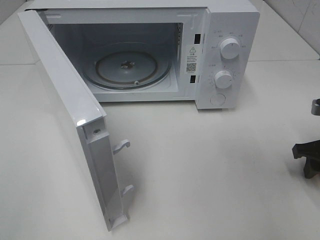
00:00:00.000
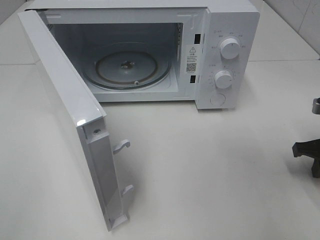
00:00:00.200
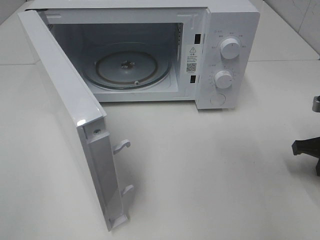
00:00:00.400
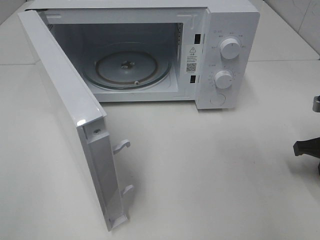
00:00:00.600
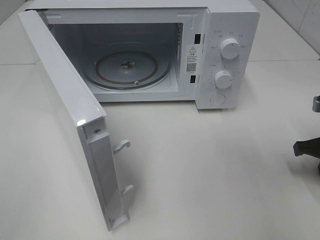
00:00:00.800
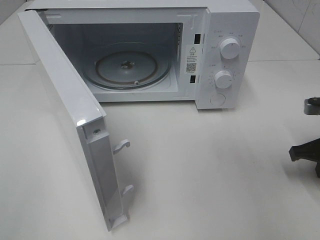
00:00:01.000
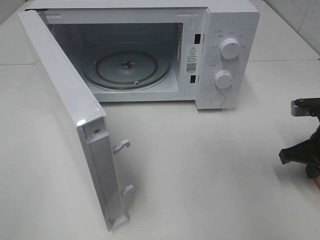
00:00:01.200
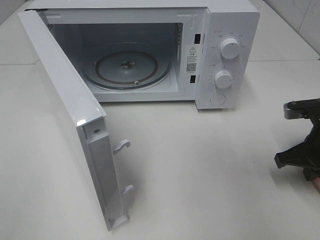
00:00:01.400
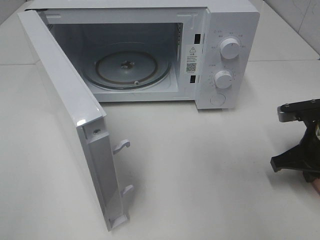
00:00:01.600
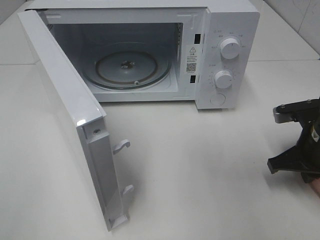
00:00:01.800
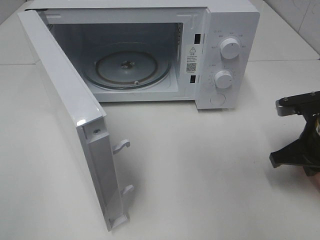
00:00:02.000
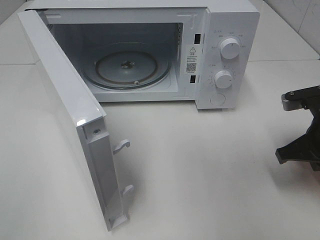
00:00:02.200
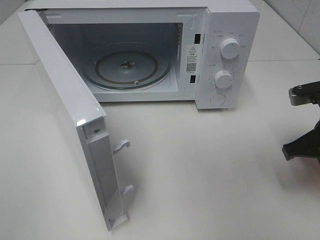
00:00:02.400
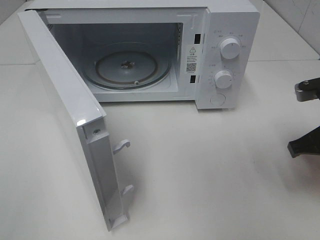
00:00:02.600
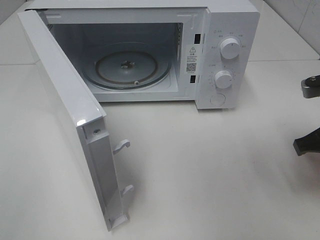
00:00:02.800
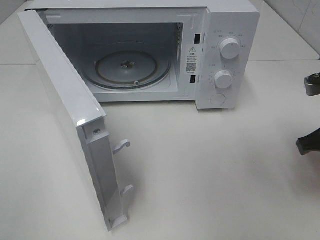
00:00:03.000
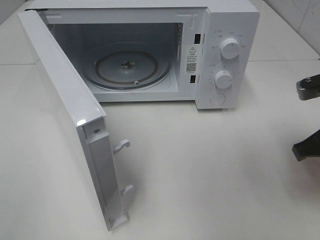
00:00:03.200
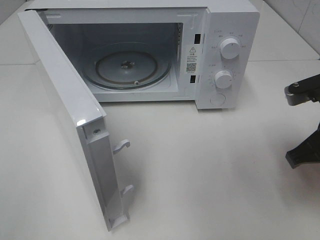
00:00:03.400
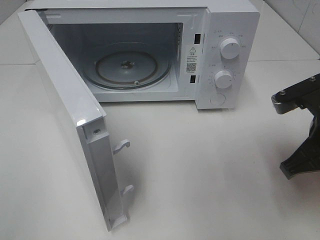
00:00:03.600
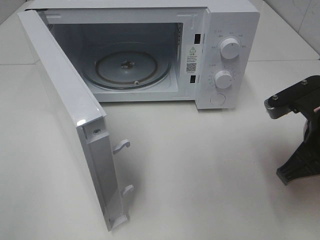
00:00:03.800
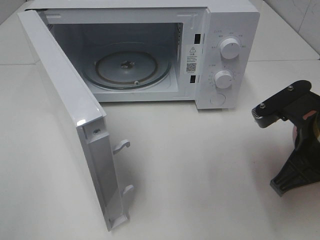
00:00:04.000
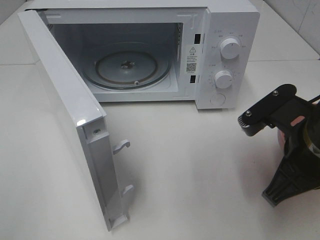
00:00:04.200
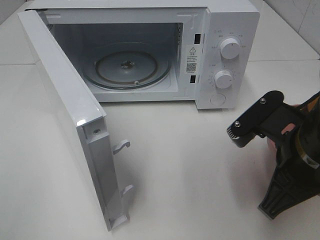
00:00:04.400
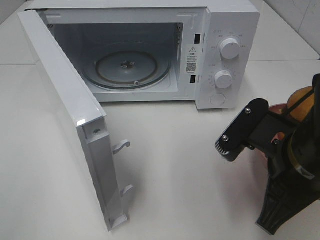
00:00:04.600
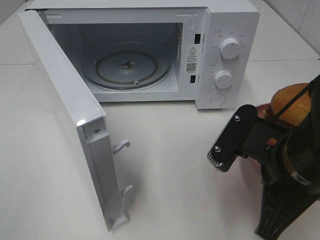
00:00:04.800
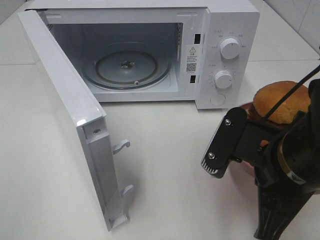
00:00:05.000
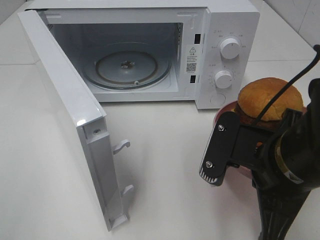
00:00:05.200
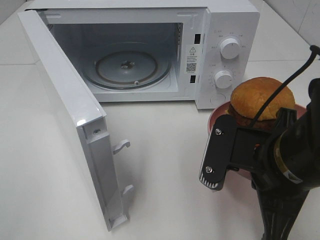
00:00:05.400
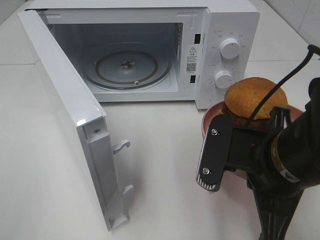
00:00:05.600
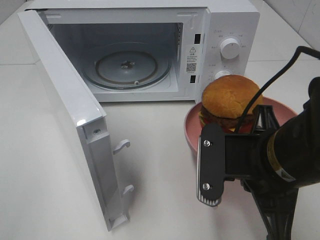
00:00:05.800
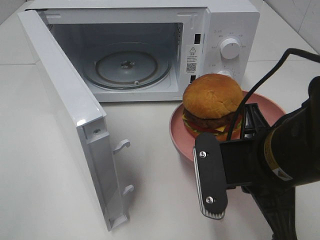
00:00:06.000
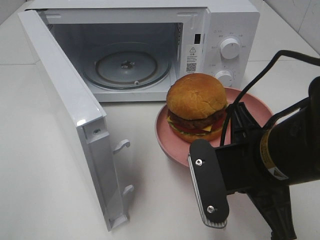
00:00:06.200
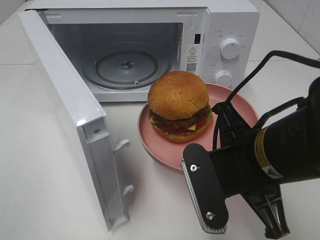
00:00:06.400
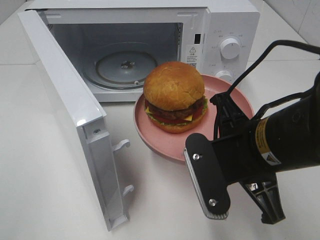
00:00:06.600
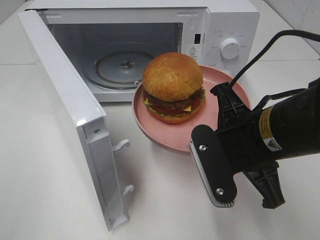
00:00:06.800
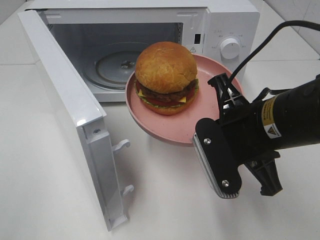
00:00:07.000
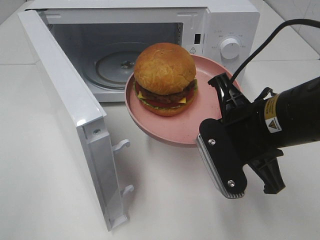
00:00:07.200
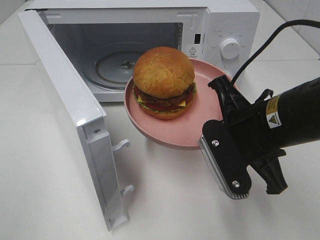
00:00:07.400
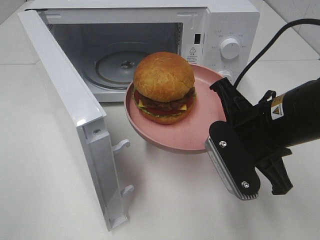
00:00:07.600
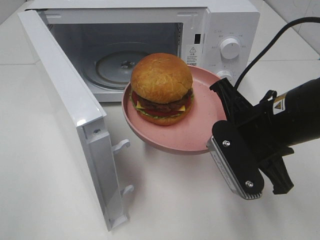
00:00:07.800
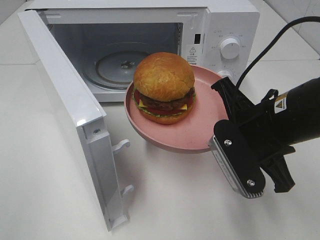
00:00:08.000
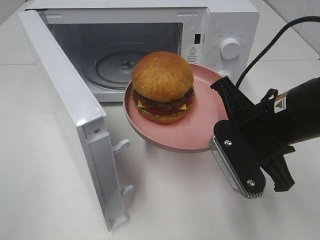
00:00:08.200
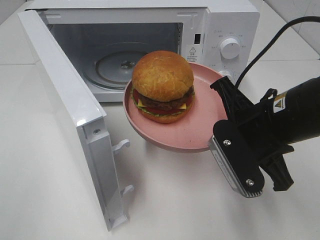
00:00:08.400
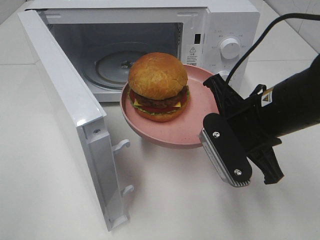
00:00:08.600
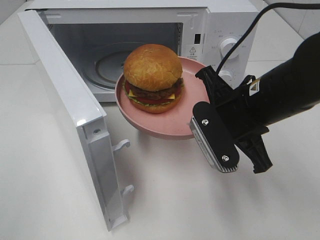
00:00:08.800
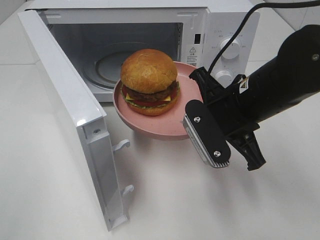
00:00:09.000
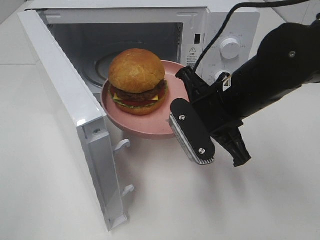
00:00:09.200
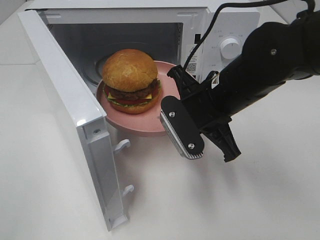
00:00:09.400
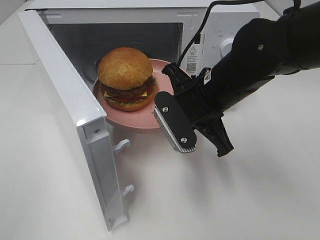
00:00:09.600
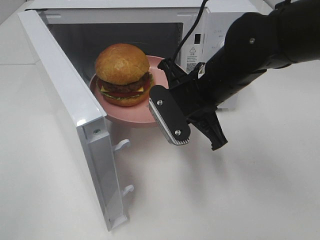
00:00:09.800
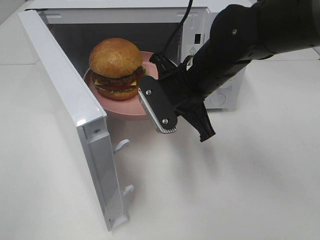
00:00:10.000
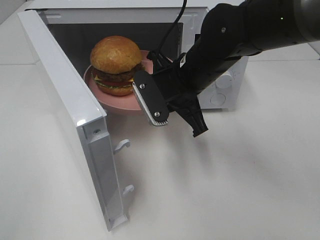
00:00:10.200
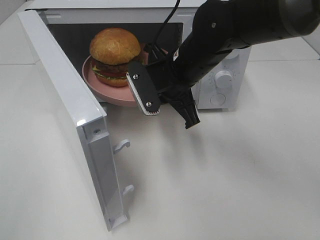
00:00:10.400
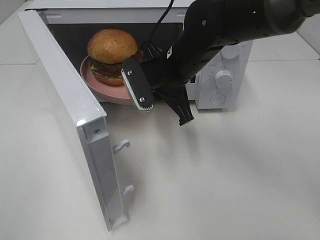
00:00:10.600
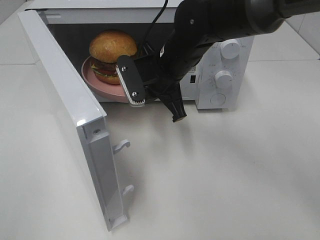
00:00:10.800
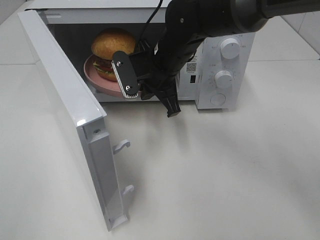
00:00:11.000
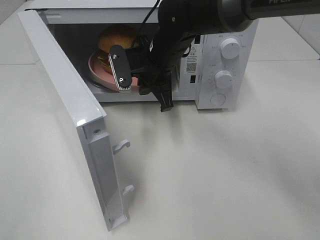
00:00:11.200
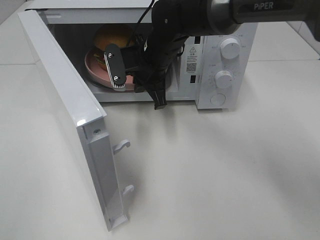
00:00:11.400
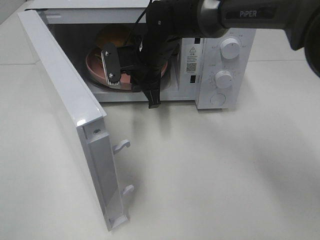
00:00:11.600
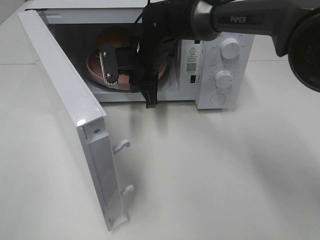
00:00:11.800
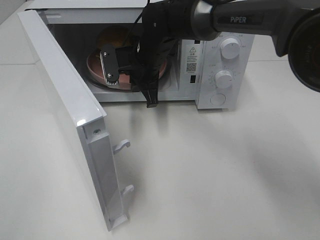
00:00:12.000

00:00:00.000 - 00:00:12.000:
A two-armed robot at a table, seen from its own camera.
Task of the whole recording: Heat the burger.
00:00:00.000 - 00:00:01.600: The right gripper heads to the left, covering roughly 5 cm, and closes its fingers.
00:00:01.600 - 00:00:03.000: The right gripper goes roughly 10 cm upward.
00:00:03.000 - 00:00:04.400: The right gripper shifts approximately 10 cm to the left and backward.
00:00:06.000 - 00:00:07.600: The right gripper goes about 5 cm forward.
00:00:09.000 - 00:00:10.400: The right gripper shifts about 10 cm forward and to the left.
00:00:10.400 - 00:00:12.000: The right gripper is displaced forward and to the left by roughly 10 cm.

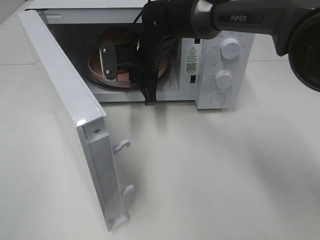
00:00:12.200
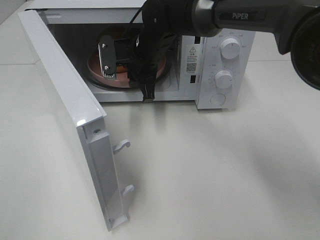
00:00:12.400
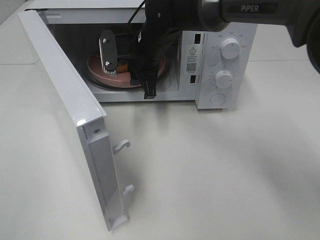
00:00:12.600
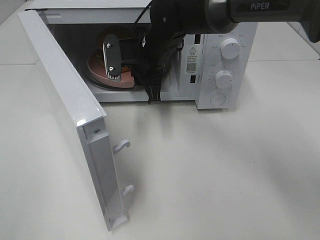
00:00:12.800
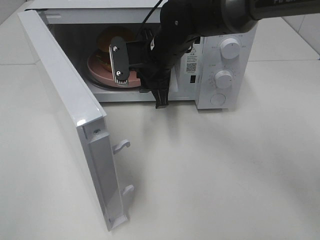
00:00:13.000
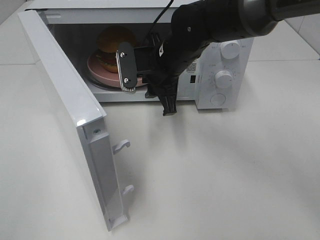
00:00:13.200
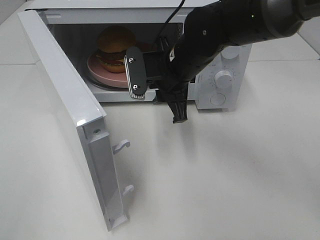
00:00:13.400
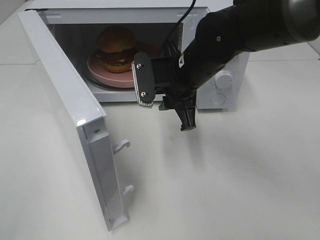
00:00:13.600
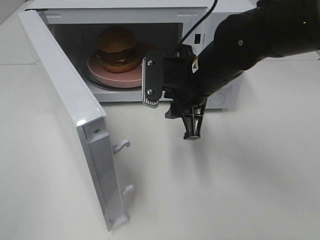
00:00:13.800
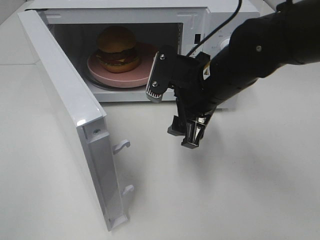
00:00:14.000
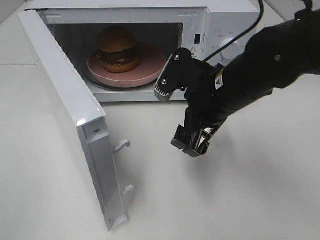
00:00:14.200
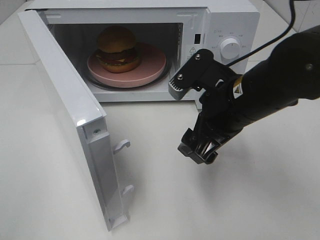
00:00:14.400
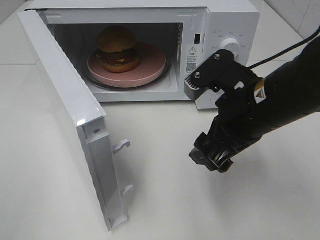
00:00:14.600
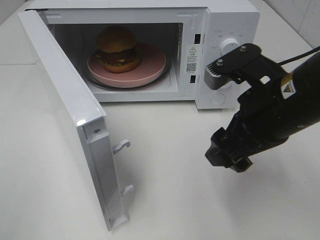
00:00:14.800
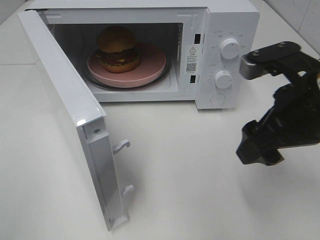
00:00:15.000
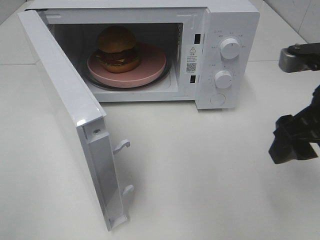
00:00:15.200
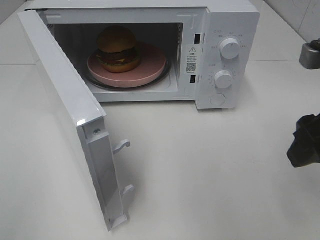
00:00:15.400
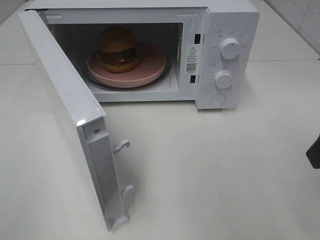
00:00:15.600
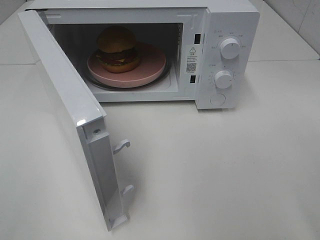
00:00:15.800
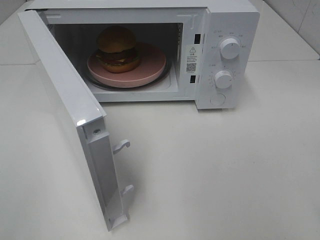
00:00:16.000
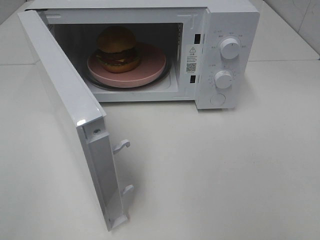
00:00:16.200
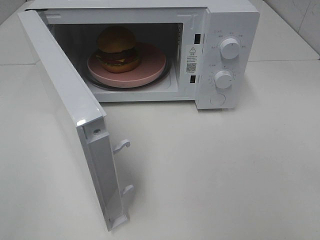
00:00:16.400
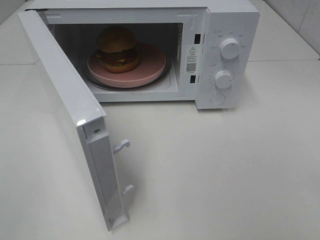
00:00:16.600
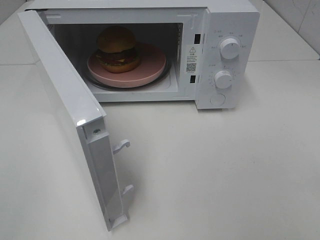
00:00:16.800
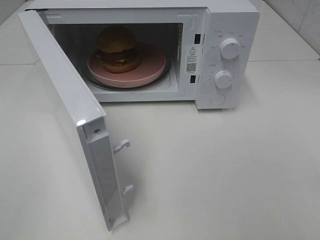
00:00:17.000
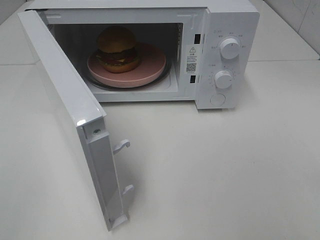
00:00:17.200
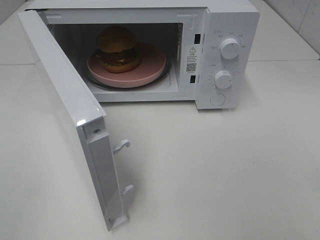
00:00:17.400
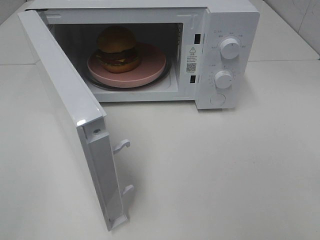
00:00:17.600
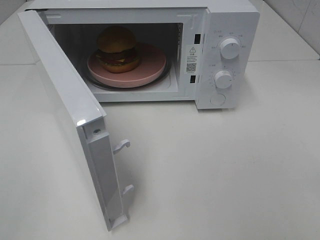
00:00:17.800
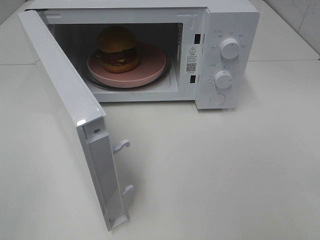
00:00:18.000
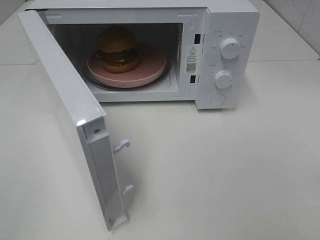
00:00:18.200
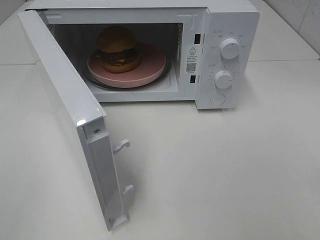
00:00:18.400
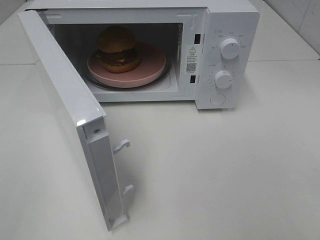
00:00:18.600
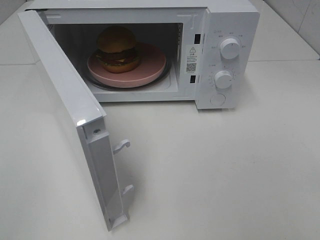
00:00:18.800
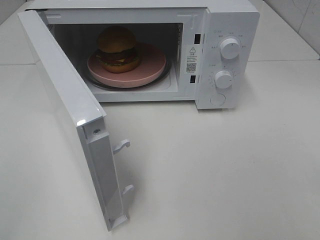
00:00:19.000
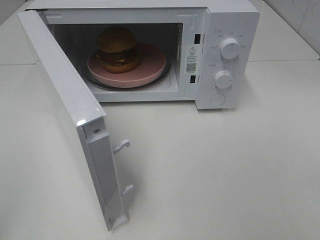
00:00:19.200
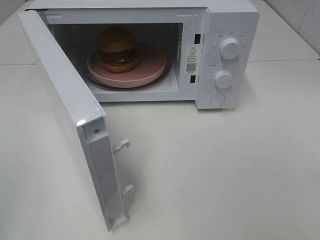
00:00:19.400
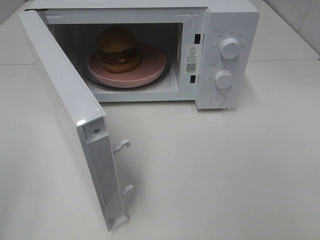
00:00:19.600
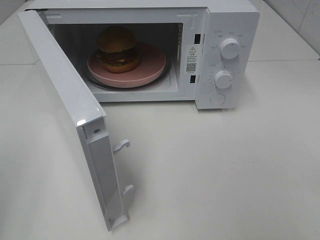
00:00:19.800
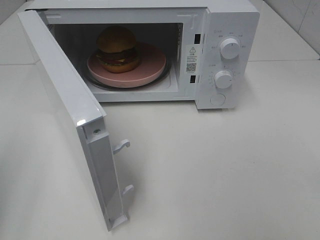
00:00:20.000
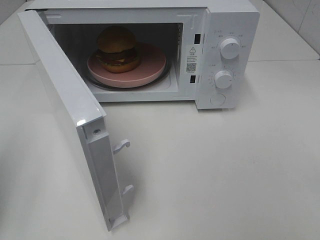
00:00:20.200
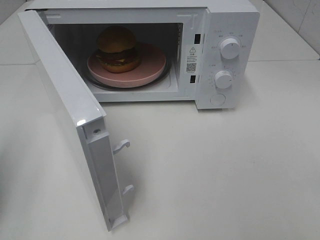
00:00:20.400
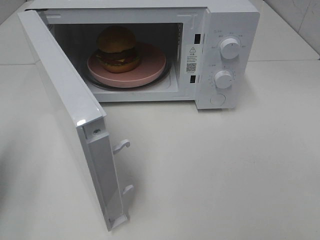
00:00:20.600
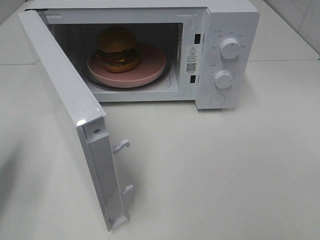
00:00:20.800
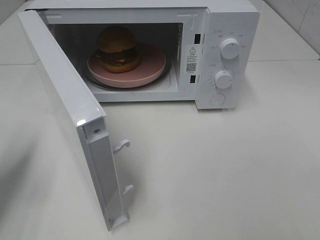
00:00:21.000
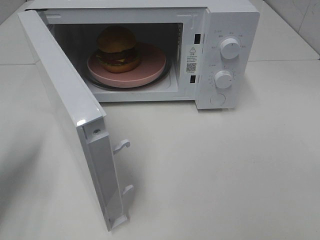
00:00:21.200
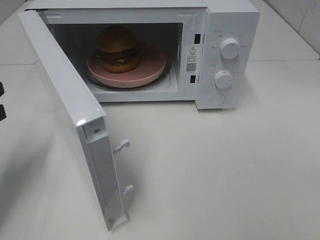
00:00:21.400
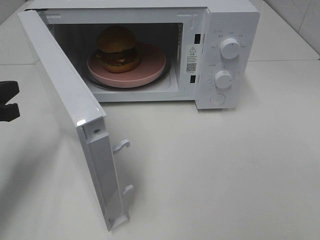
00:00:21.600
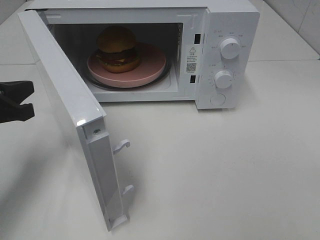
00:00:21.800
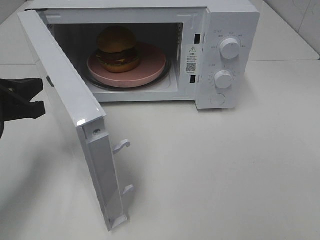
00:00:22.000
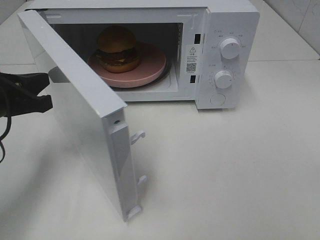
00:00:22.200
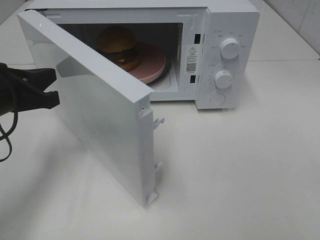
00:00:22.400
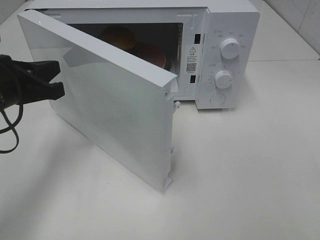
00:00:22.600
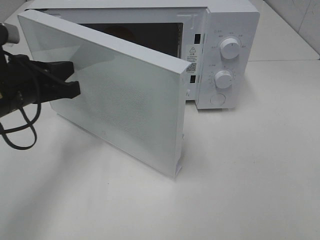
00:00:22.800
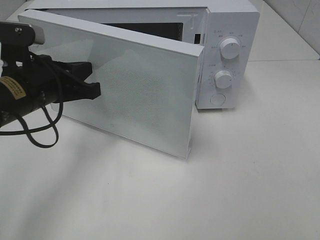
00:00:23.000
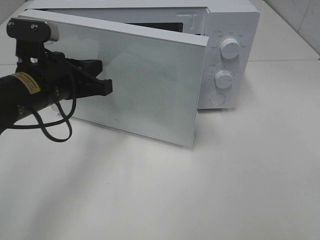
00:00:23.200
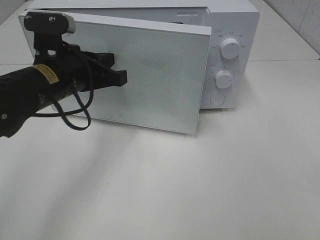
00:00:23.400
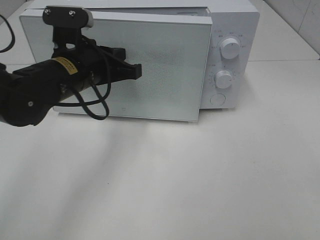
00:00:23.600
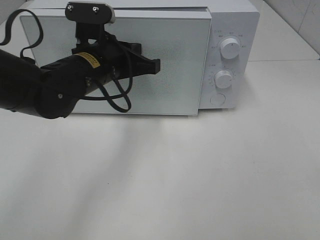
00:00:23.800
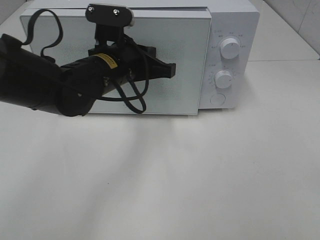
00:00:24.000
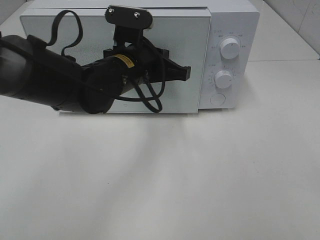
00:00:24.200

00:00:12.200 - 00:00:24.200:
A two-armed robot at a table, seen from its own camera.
Task of the whole recording: Heat the burger.
00:00:12.200 - 00:00:13.800: The right gripper moves backward and to the right, roughly 15 cm, and opens up.
00:00:13.800 - 00:00:15.200: The right gripper heads to the right and backward, covering about 20 cm, and opens up.
00:00:15.200 - 00:00:16.600: The right gripper travels backward by approximately 20 cm.
00:00:19.800 - 00:00:21.200: The left gripper heads forward and downward, covering about 15 cm.
00:00:21.200 - 00:00:22.600: The left gripper heads to the right, covering roughly 10 cm.
00:00:22.600 - 00:00:24.200: The left gripper travels to the right by approximately 20 cm.
